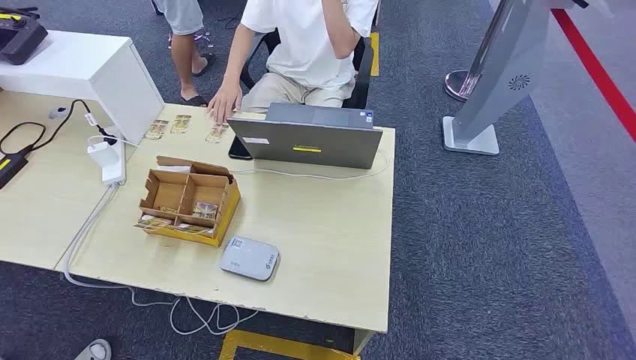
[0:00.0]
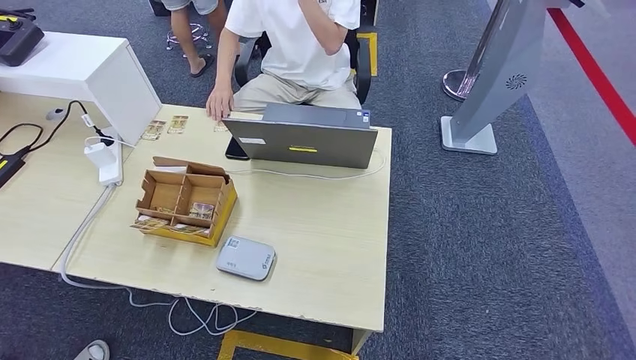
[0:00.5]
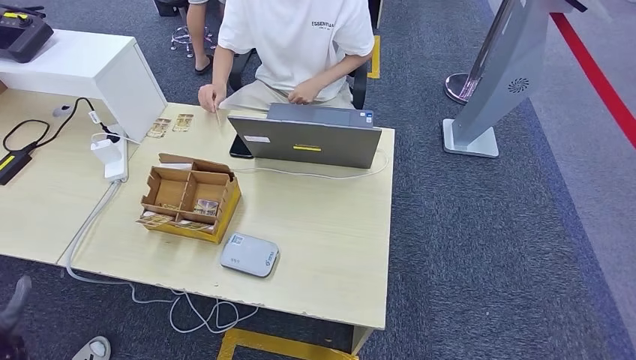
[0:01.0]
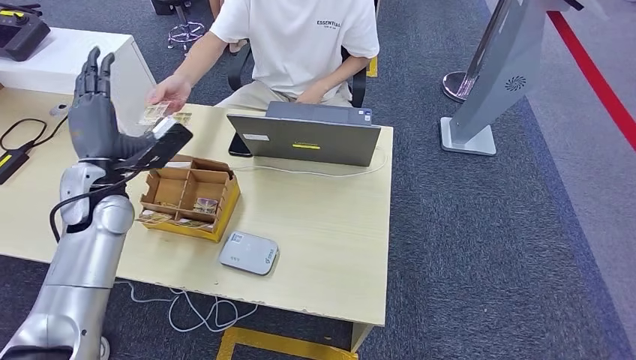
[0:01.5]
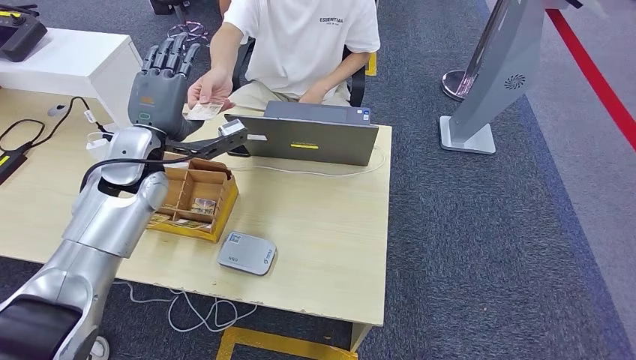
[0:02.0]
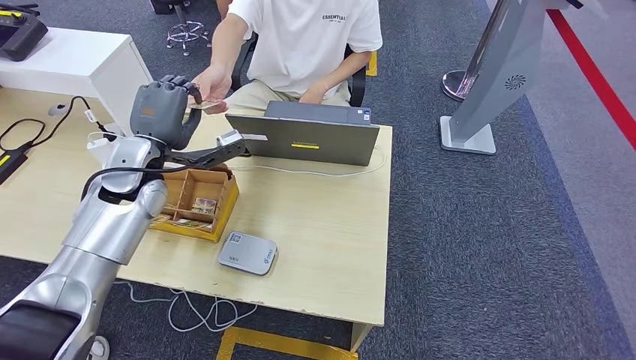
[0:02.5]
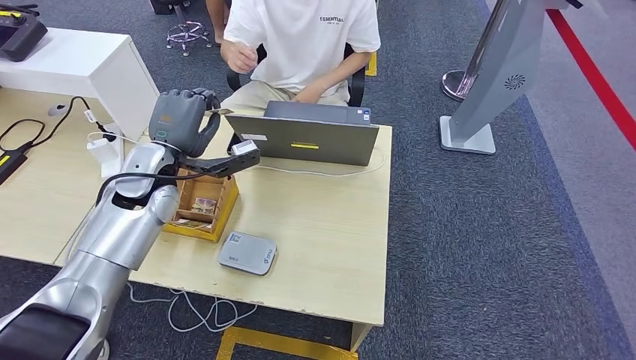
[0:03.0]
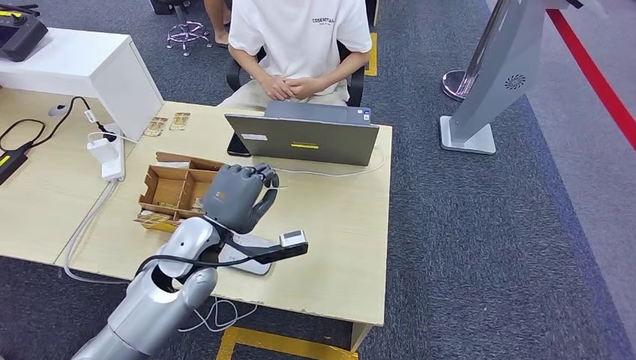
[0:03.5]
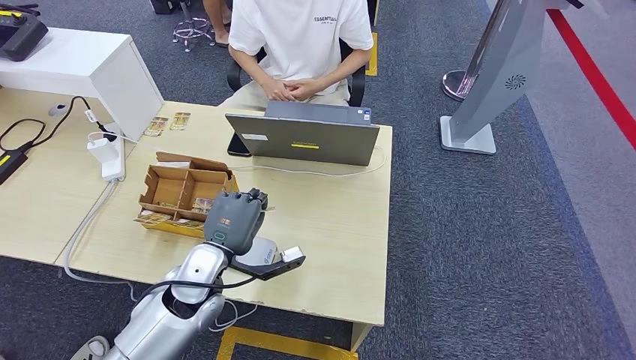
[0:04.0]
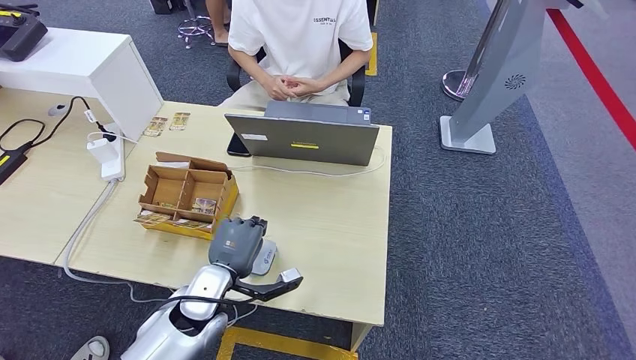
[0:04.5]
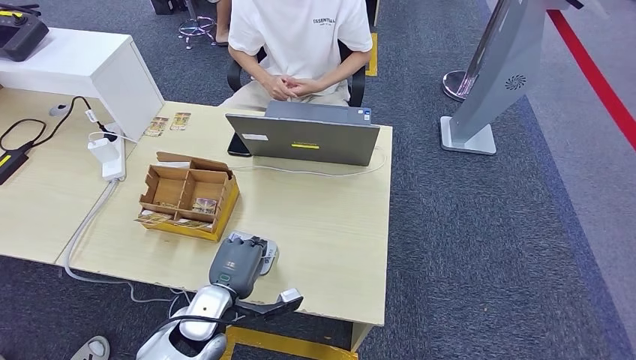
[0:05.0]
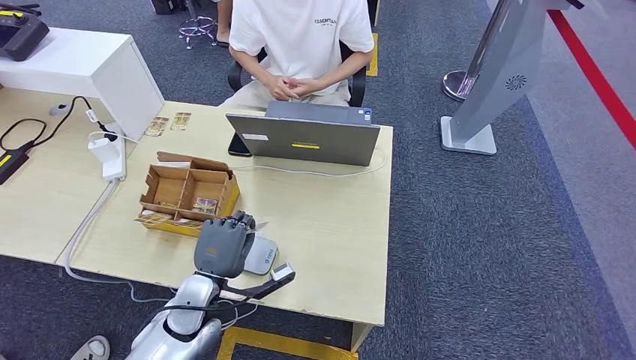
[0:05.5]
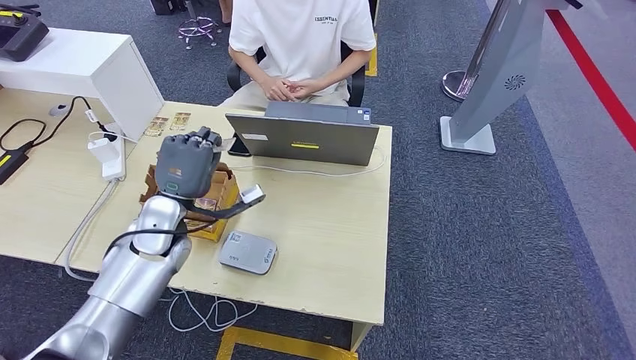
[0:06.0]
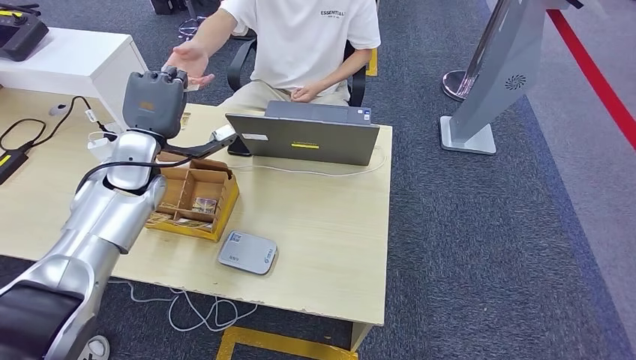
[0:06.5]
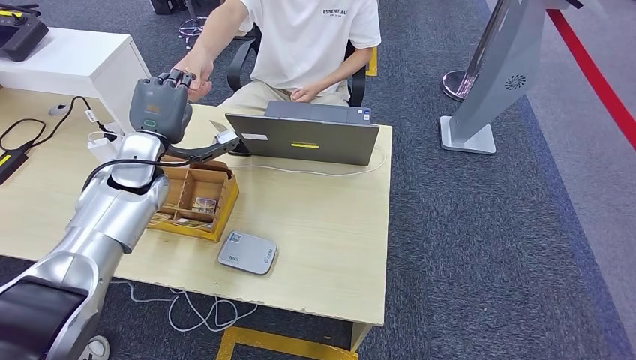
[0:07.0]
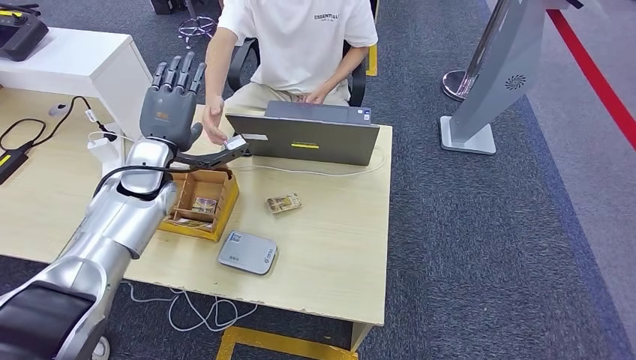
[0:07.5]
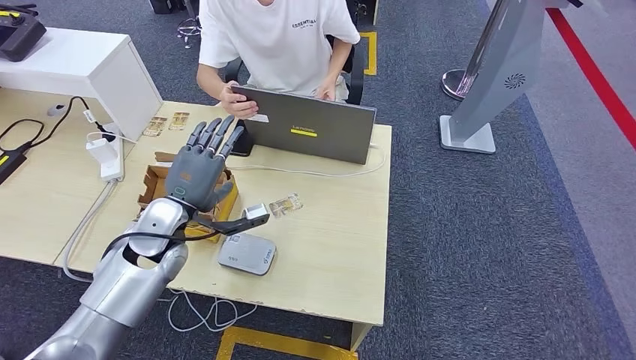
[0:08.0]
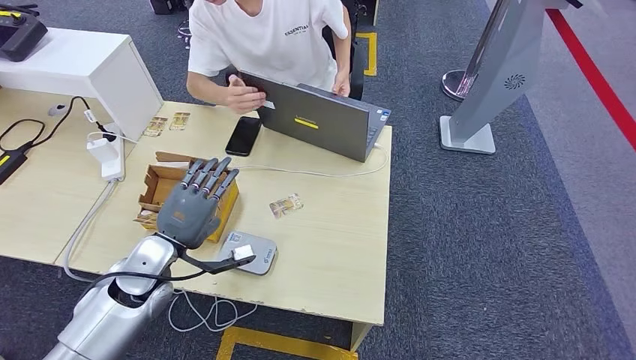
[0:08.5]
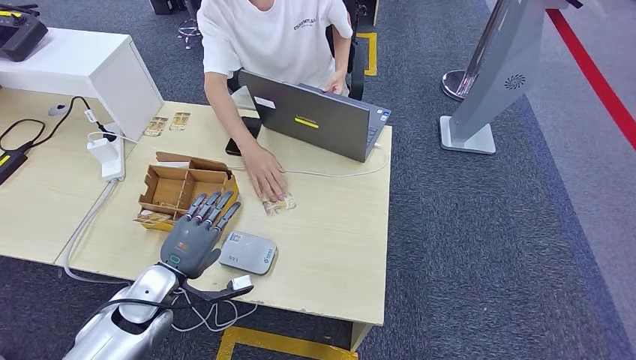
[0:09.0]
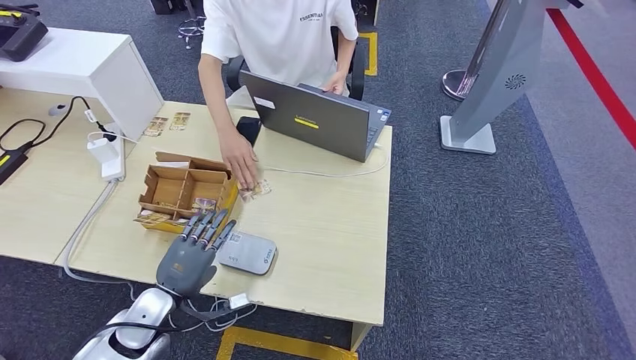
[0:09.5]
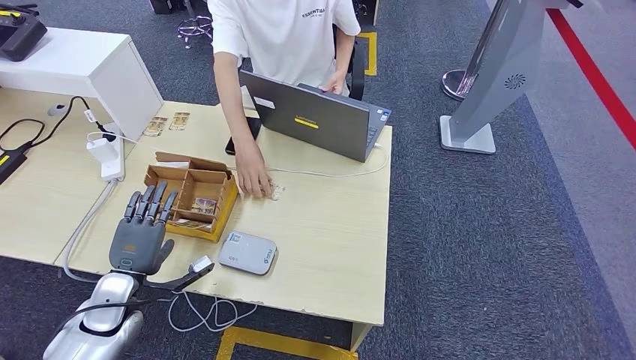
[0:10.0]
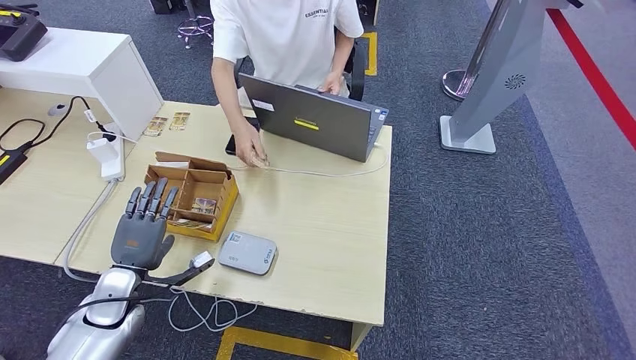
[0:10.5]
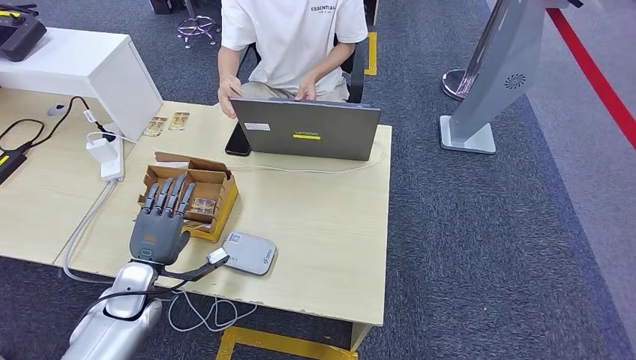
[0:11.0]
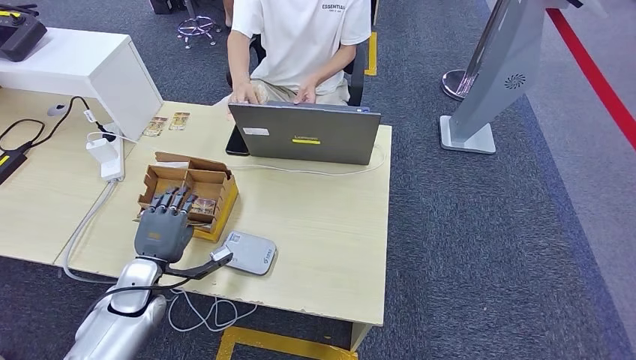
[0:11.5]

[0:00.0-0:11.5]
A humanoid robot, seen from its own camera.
Step, 0:00.0 to 0:04.0: Take the ID card from the person's hand.
Step, 0:04.5 to 0:05.5: Place the ID card on the card reader.
Step, 0:06.5 to 0:07.5: Hand the ID card to the person.
0:02.0 to 0:04.0: The left hand is displaced downward, backward and to the right by roughly 20 cm.
0:04.0 to 0:06.0: The left hand moves to the left and forward, roughly 10 cm.
0:06.0 to 0:07.5: The left hand shifts roughly 10 cm forward and upward.
0:07.5 to 0:09.5: The left hand shifts about 25 cm backward and downward.
0:09.5 to 0:11.5: The left hand ends up about 5 cm from where it was.

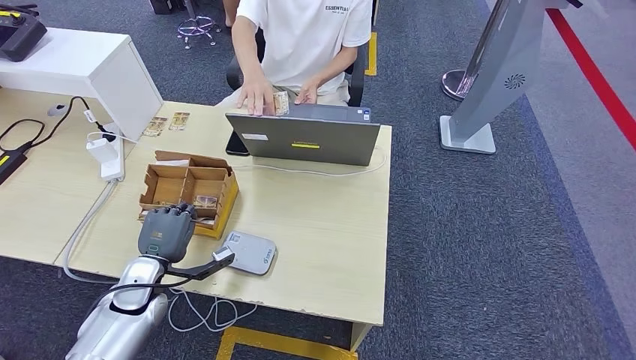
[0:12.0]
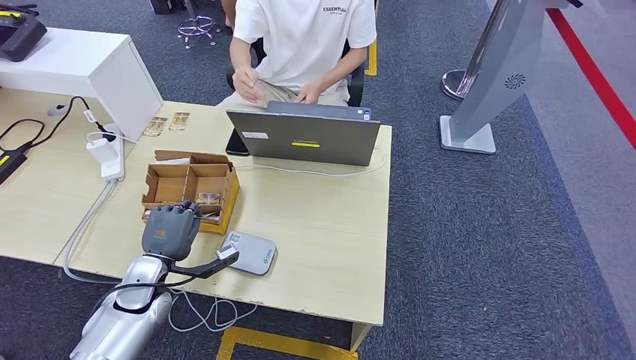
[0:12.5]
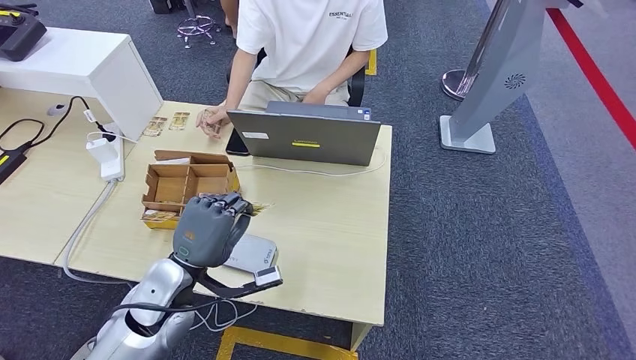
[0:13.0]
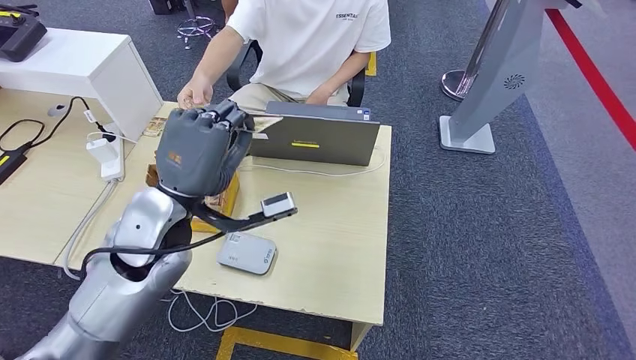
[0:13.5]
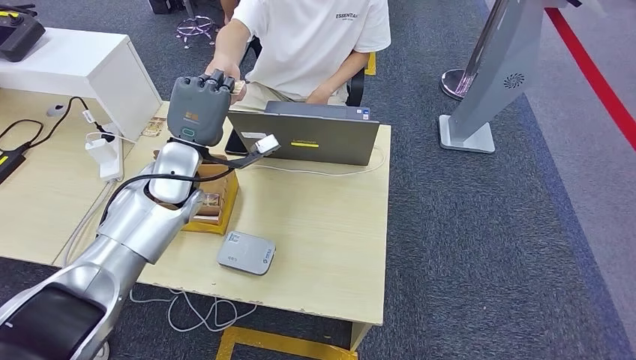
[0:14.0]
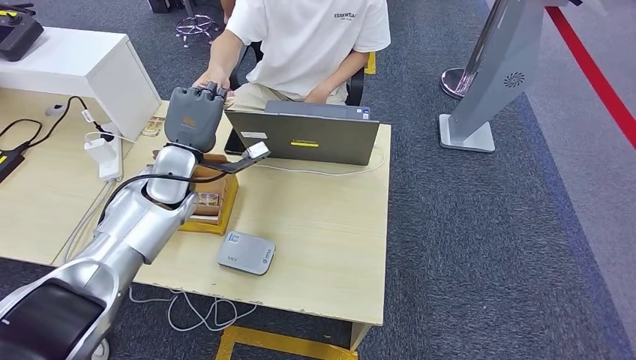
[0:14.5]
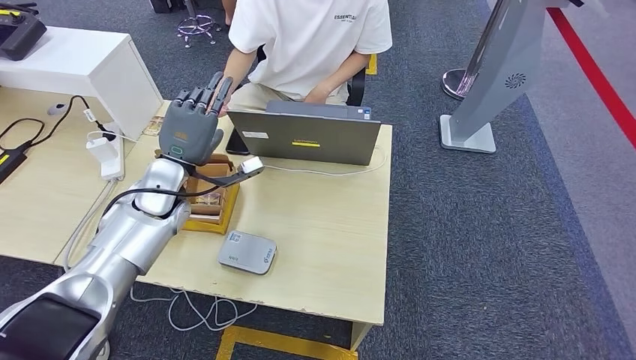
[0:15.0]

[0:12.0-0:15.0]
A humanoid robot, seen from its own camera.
Step, 0:12.0 to 0:15.0: Hand the room key to the person.
0:12.0 to 0:13.5: The left hand is displaced upward and to the right by about 25 cm.
0:13.5 to 0:15.0: The left hand goes approximately 15 cm forward, downward and to the left.
